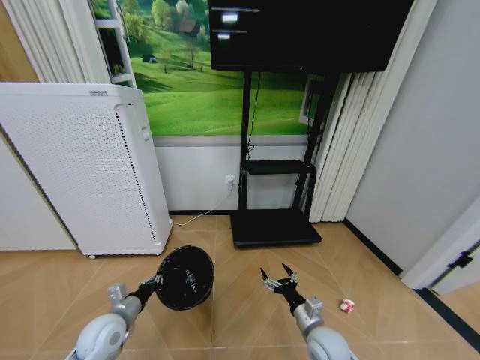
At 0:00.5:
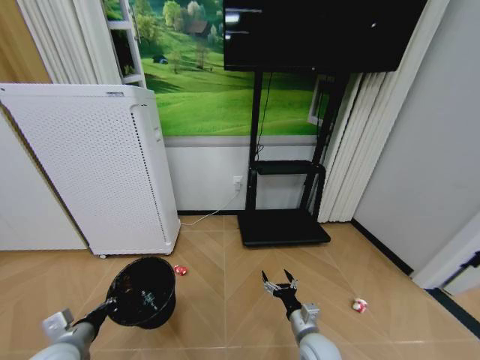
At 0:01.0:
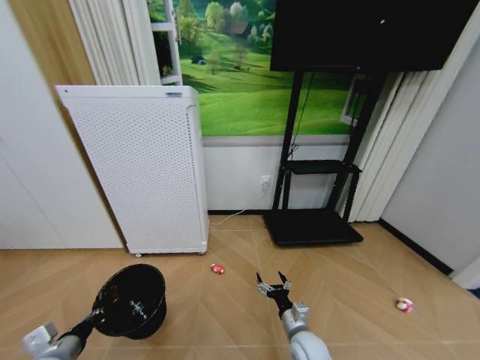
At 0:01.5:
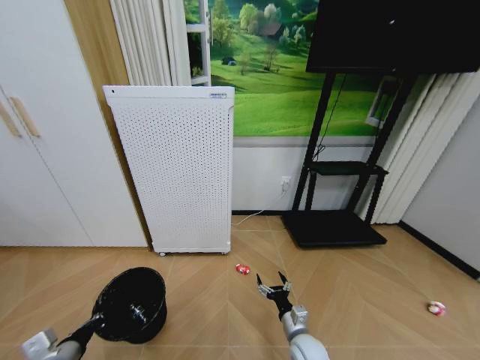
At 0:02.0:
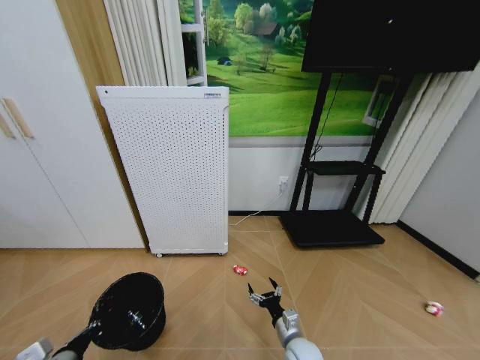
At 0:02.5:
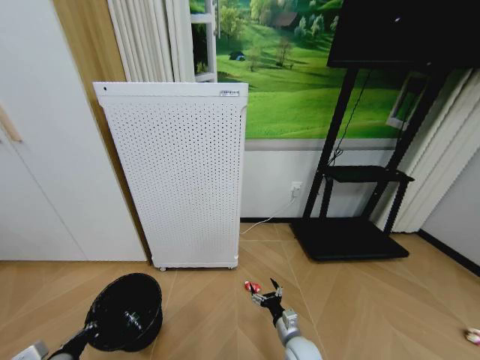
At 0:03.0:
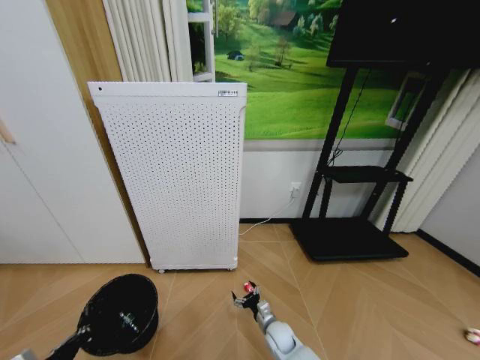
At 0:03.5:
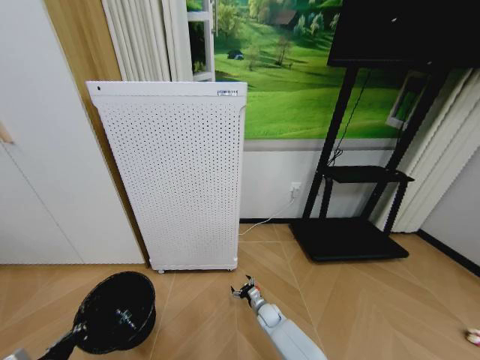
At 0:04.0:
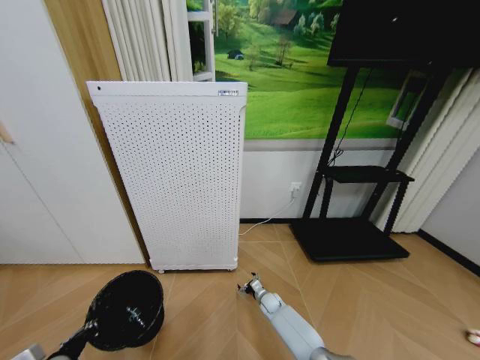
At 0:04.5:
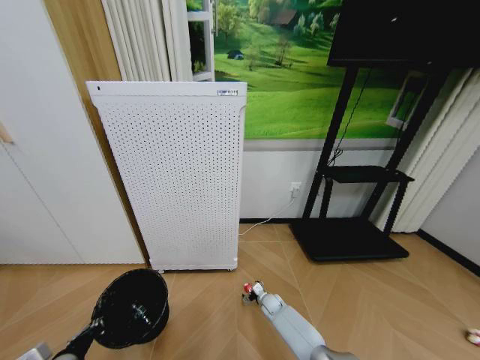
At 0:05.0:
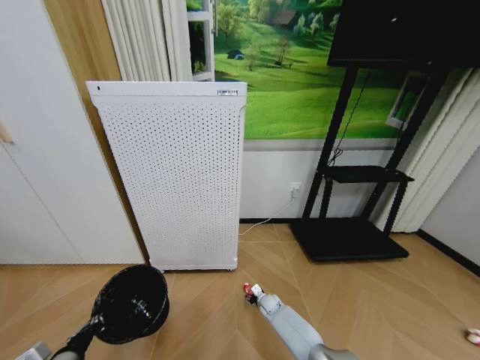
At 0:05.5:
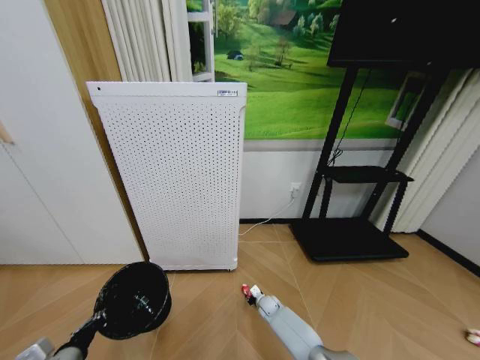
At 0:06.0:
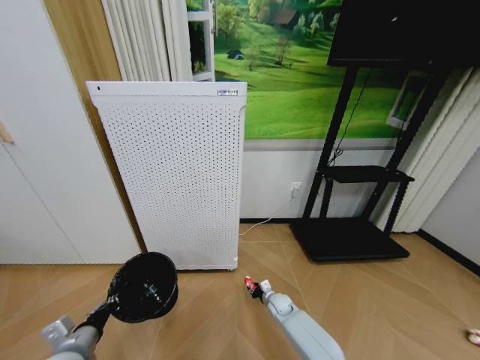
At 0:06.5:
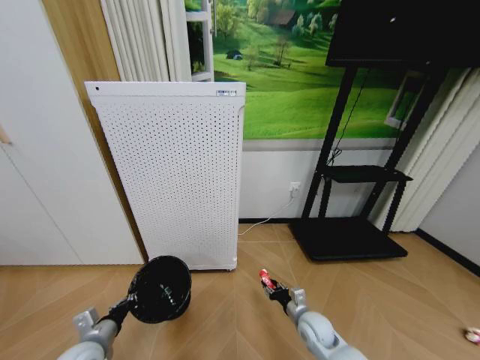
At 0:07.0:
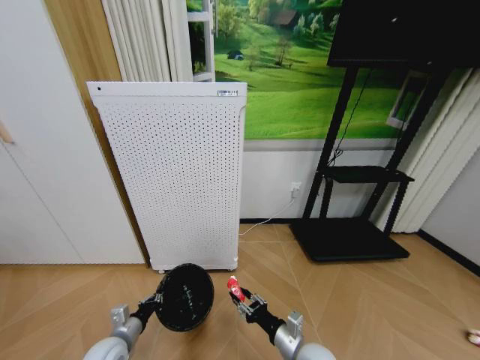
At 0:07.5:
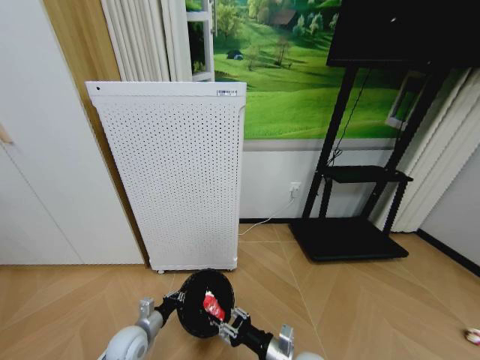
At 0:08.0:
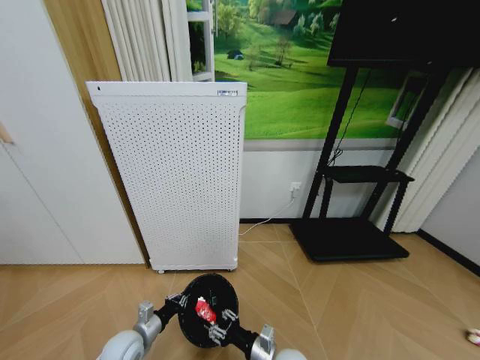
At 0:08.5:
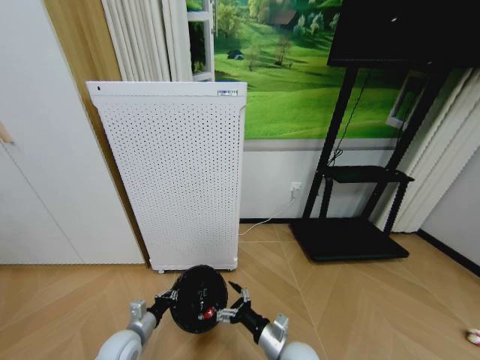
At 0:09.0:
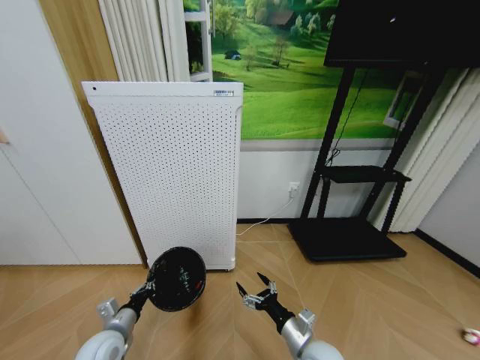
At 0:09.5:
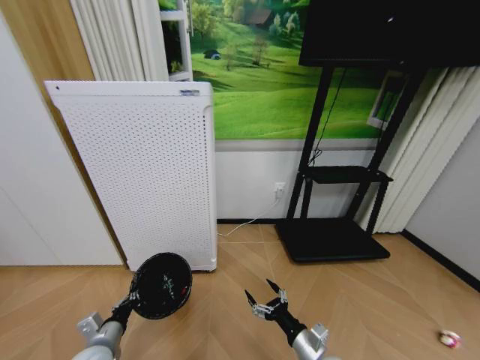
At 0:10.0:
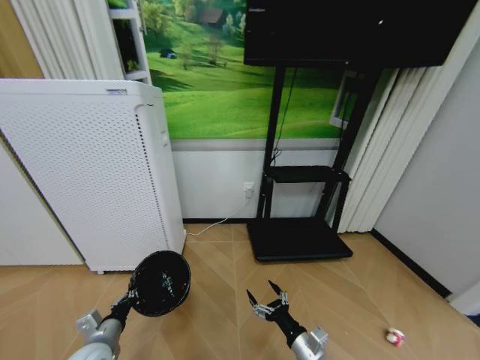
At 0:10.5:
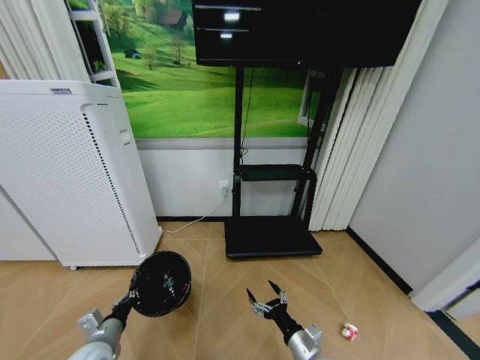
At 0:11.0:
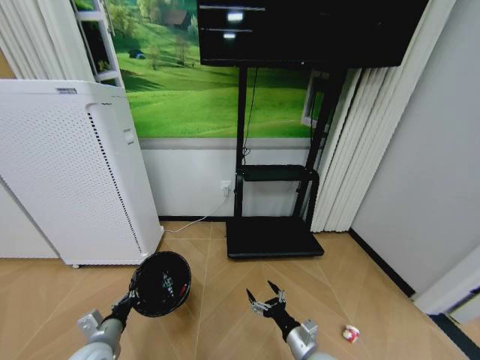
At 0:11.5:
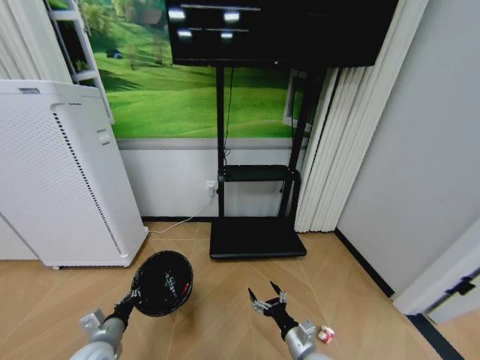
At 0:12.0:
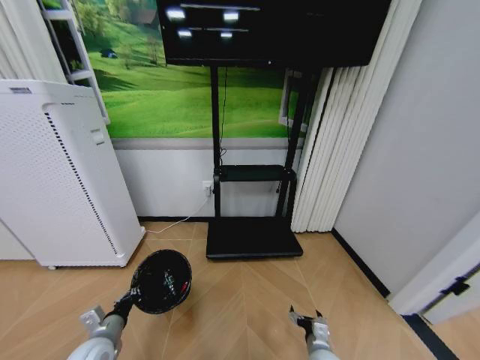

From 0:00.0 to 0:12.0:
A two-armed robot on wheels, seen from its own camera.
Task of the whole recording: Pick up the trash bin and place the garbage on the floor into it.
From 0:00.0 to 0:02.0: The right gripper moves downward and to the left, some 10 cm. The left gripper moves backward and to the left, roughly 15 cm.
From 0:02.0 to 0:04.0: The right gripper moves forward and downward, roughly 25 cm.
From 0:04.0 to 0:06.0: The right gripper closes.
From 0:06.0 to 0:08.0: The left gripper heads downward, forward and to the right, covering roughly 15 cm. The right gripper travels backward and upward by approximately 25 cm.
From 0:08.0 to 0:10.0: The left gripper is displaced upward by approximately 5 cm; the right gripper shifts roughly 10 cm to the right, and opens up.
From 0:10.0 to 0:12.0: The right gripper shifts roughly 10 cm downward.

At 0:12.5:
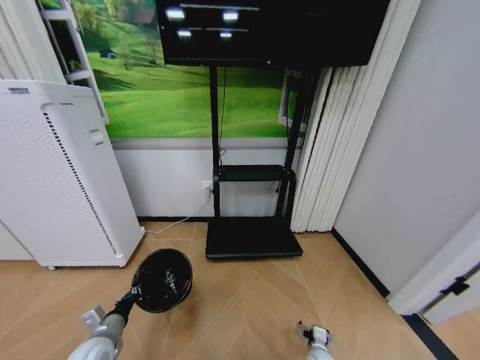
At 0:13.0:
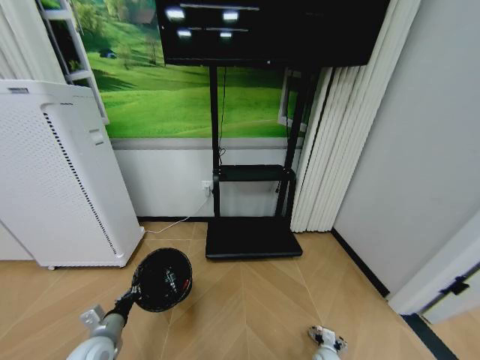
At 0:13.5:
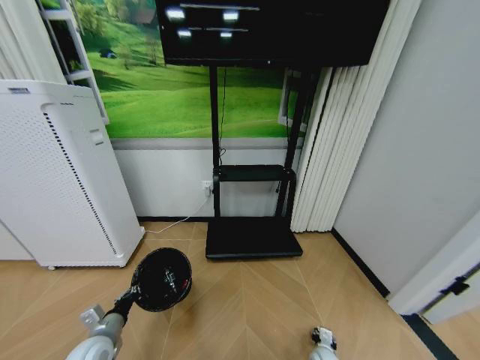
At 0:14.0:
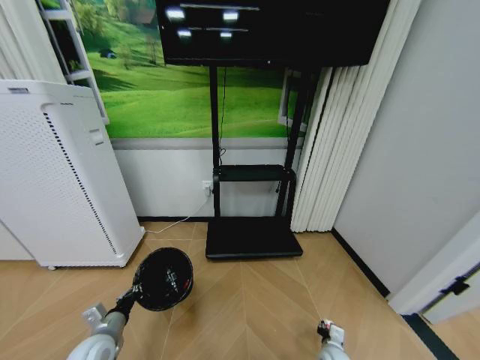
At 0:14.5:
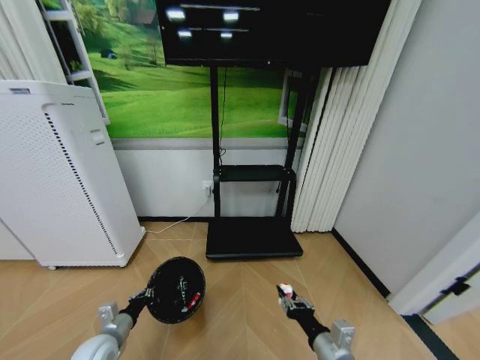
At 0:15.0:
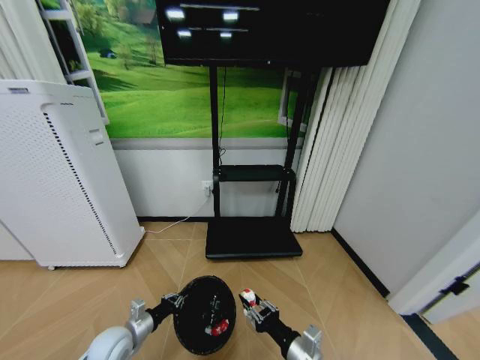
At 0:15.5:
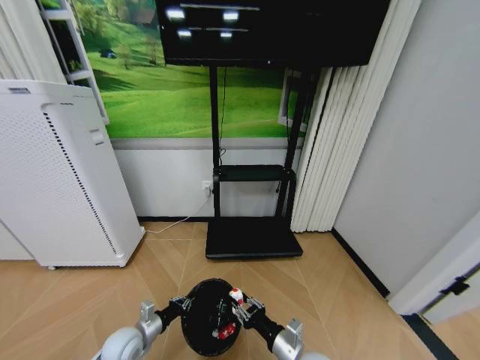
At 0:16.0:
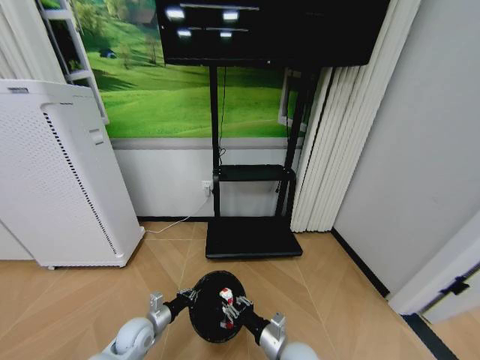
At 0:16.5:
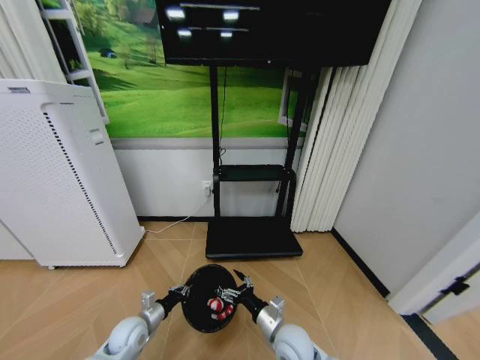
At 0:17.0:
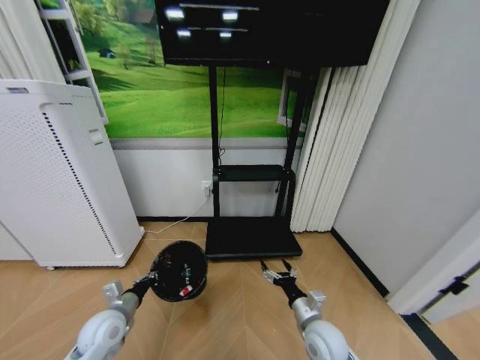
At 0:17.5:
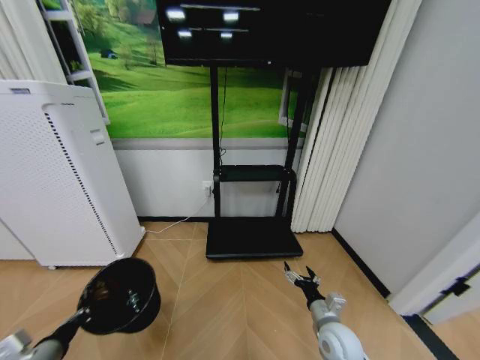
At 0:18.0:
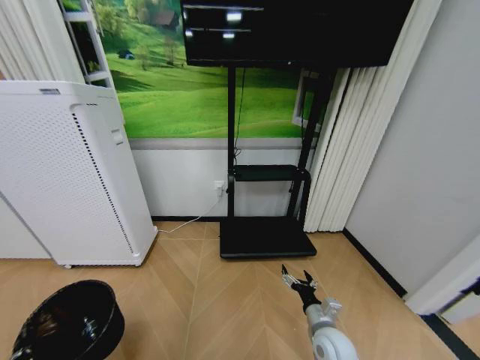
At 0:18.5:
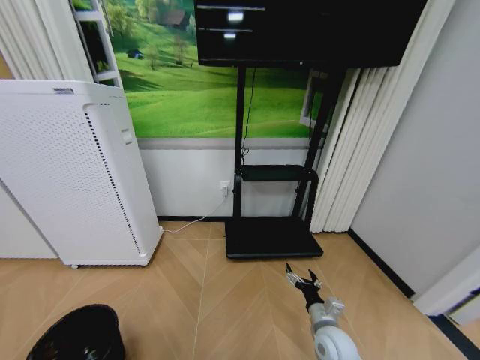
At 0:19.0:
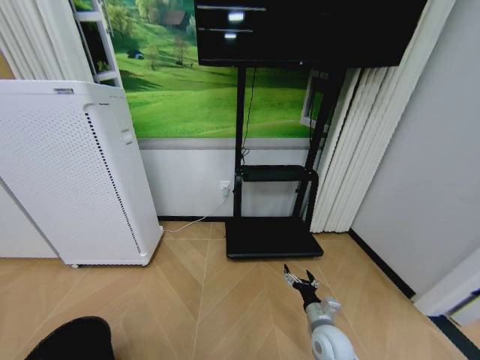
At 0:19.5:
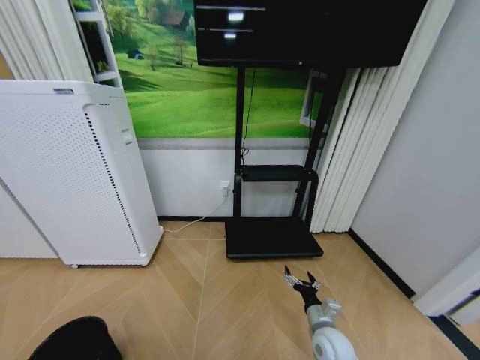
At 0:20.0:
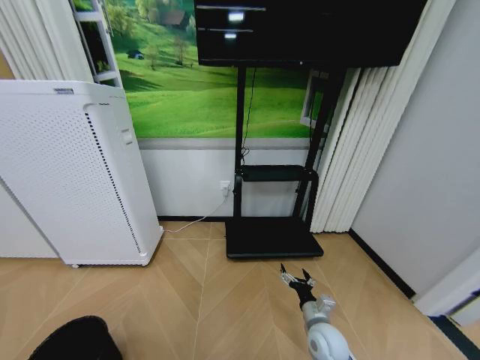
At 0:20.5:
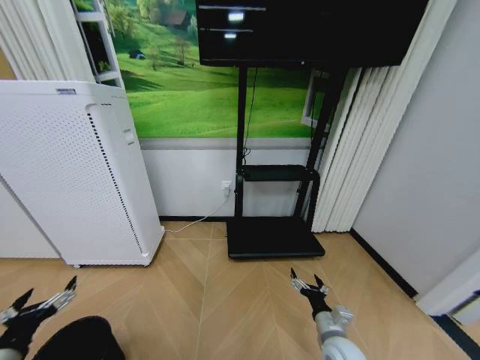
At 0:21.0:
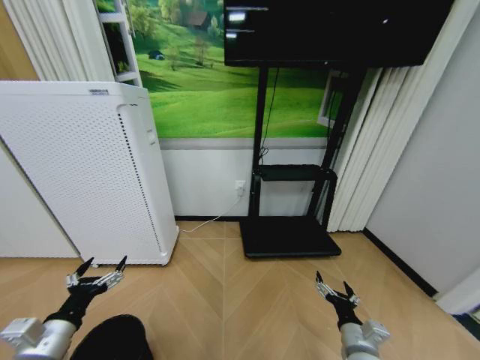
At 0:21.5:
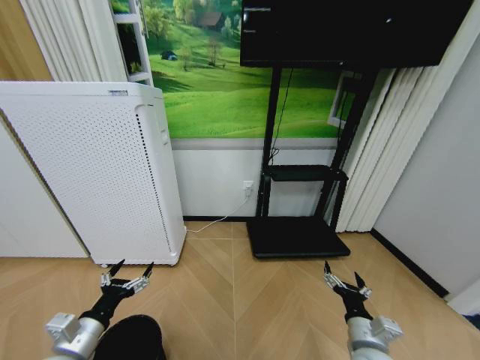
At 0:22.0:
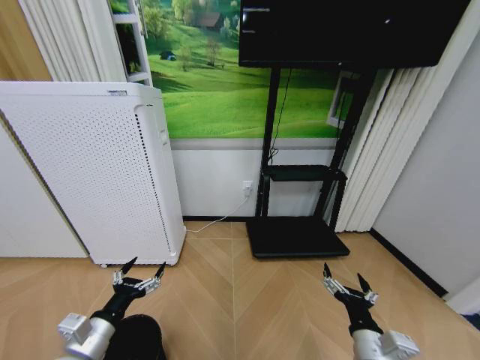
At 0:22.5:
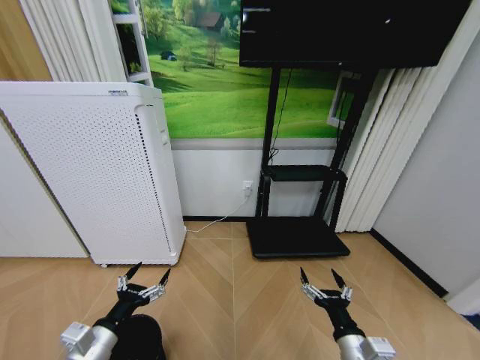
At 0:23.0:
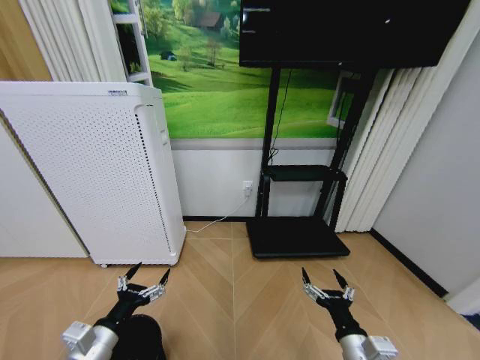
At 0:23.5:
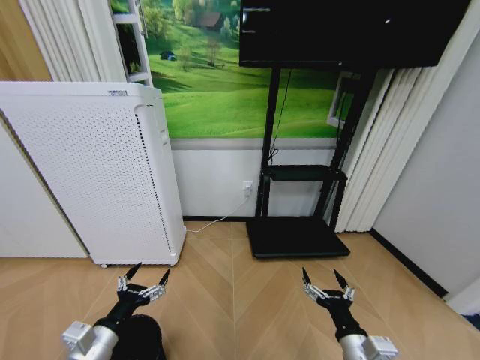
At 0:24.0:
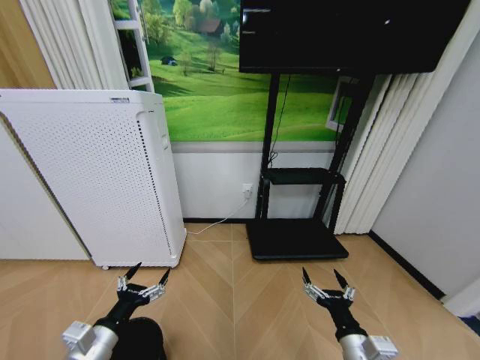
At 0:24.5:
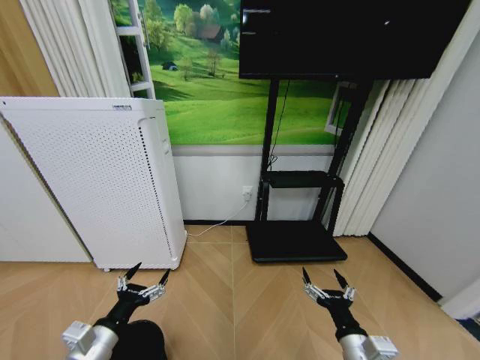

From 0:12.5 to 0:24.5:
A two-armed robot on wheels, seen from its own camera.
Task of the whole recording: Pick up the trash bin and place the garbage on the floor into it.
From 0:12.5 to 0:14.5: The right gripper goes approximately 25 cm upward, and closes.
From 0:14.5 to 0:16.5: The right gripper goes approximately 15 cm to the left, forward and downward, and opens its fingers. Meanwhile the left gripper travels forward by about 5 cm.
From 0:16.5 to 0:18.5: The right gripper travels to the right by some 10 cm; the left gripper goes some 30 cm backward, to the left and upward.
From 0:18.5 to 0:20.5: The left gripper travels upward by about 10 cm, and opens up.
From 0:20.5 to 0:22.5: The left gripper heads to the right, covering some 15 cm, while the right gripper heads backward and upward, covering approximately 15 cm.
From 0:22.5 to 0:24.5: Both grippers stay about where they are.

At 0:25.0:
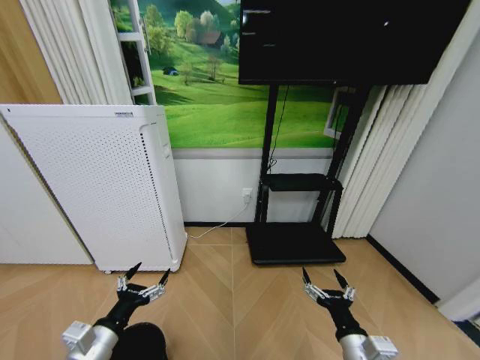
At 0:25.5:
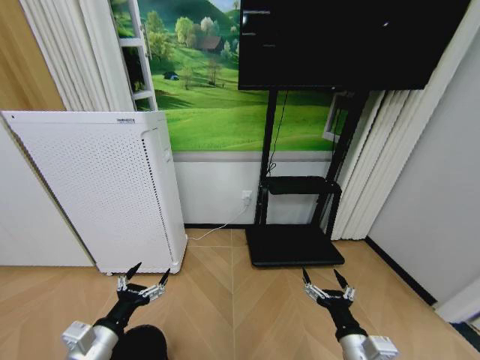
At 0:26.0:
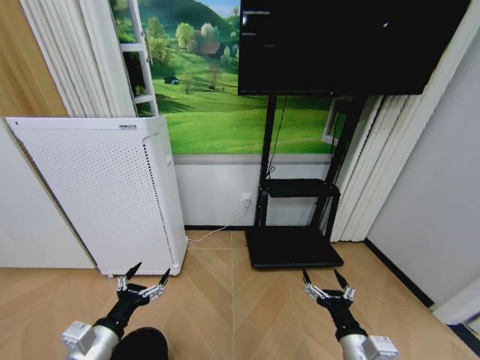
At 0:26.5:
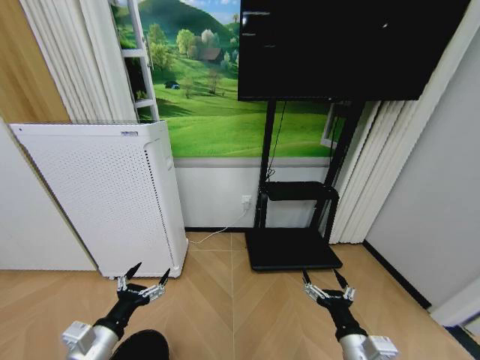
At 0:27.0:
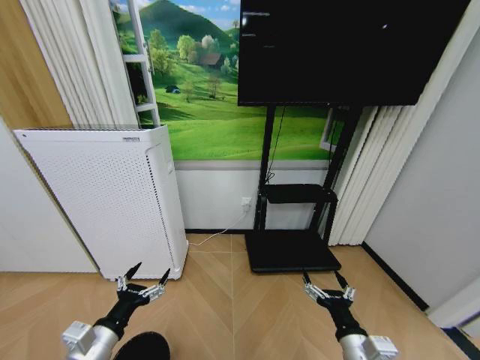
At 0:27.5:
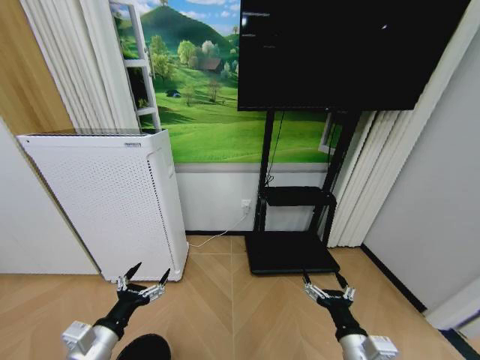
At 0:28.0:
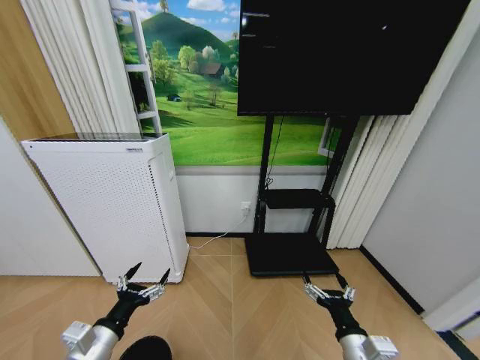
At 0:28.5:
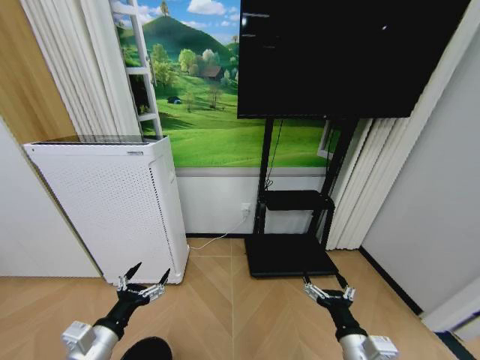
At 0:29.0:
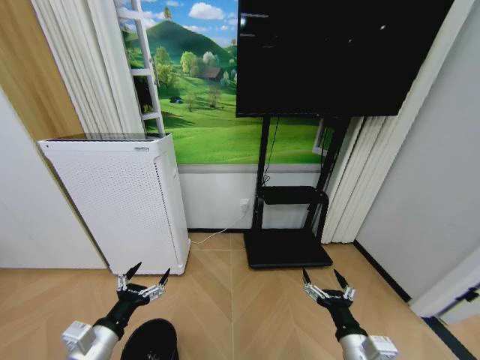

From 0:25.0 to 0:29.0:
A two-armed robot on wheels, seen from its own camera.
Task of the whole recording: Pick up the trash bin and place the garbage on the floor into it.
From 0:25.0 to 0:27.0: Both grippers stay about where they are.
